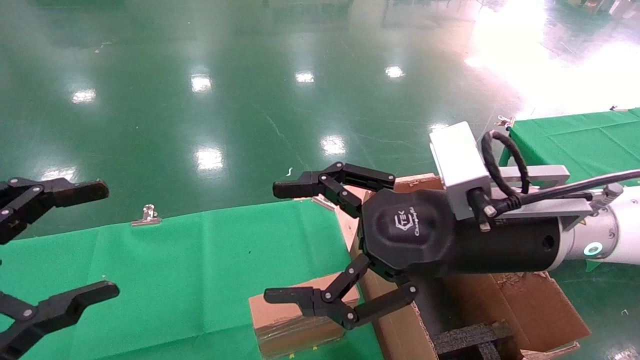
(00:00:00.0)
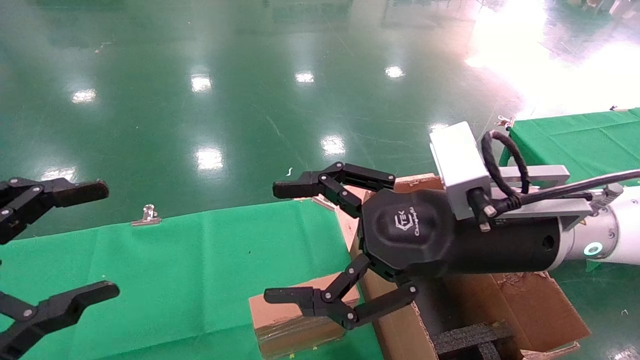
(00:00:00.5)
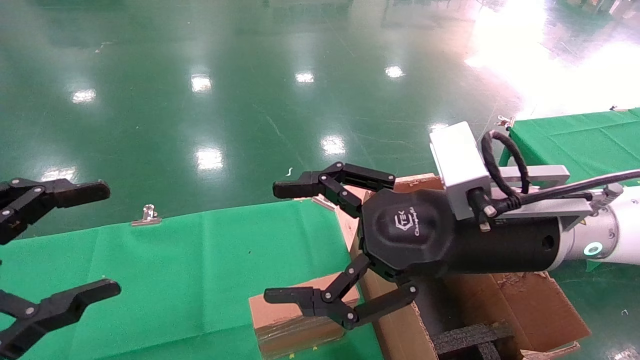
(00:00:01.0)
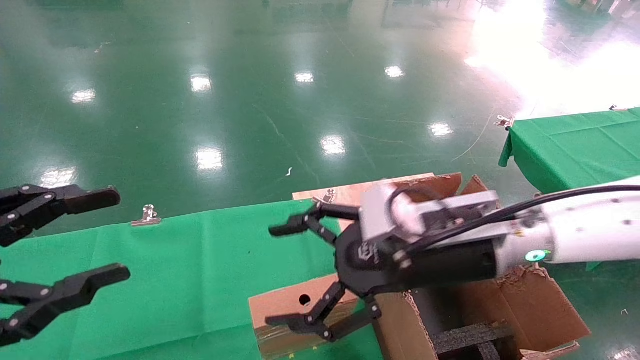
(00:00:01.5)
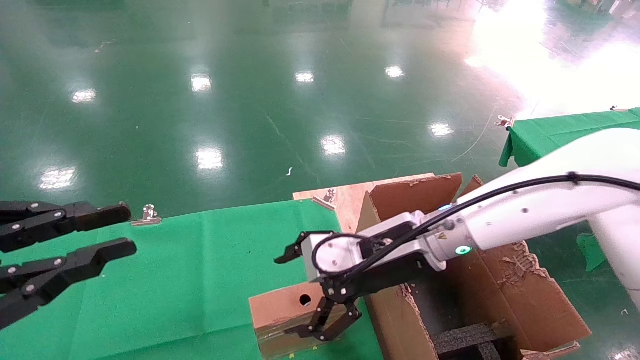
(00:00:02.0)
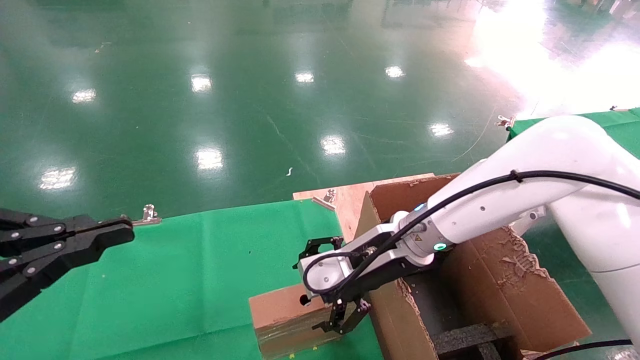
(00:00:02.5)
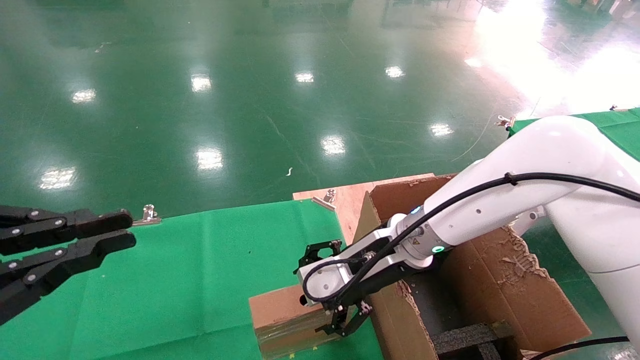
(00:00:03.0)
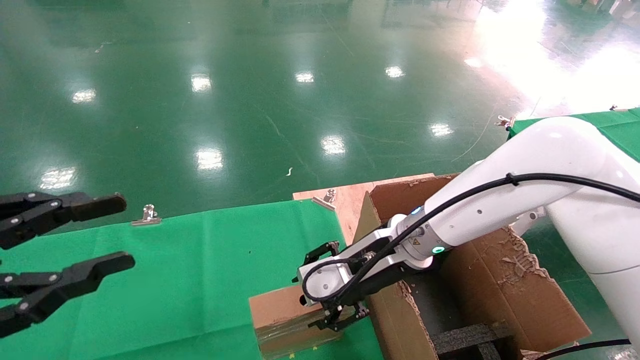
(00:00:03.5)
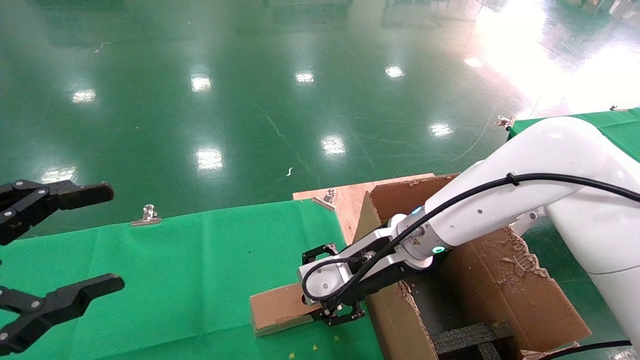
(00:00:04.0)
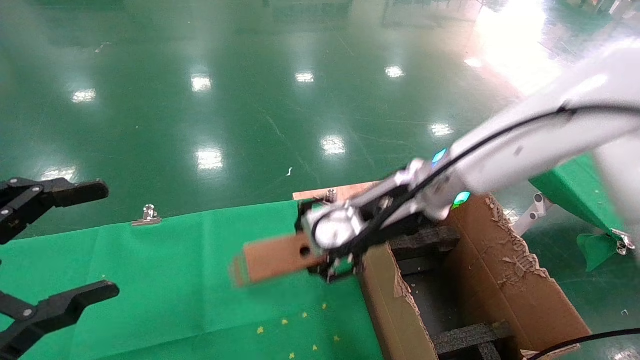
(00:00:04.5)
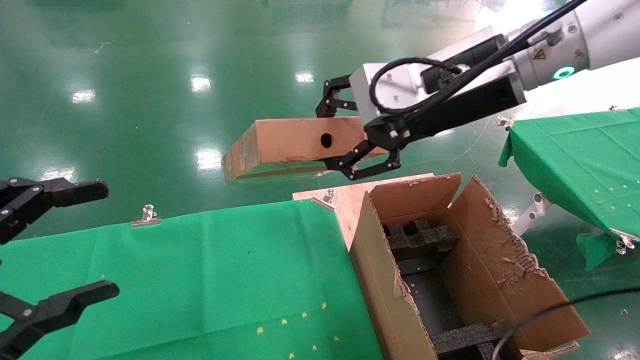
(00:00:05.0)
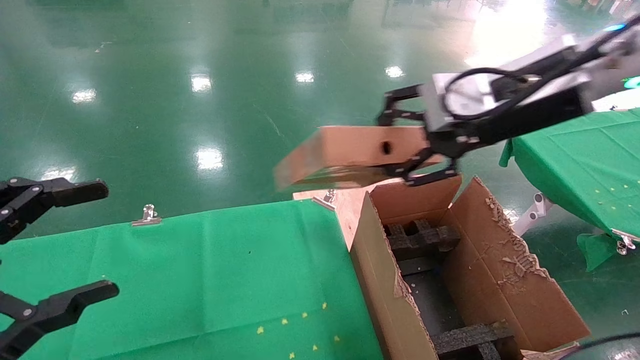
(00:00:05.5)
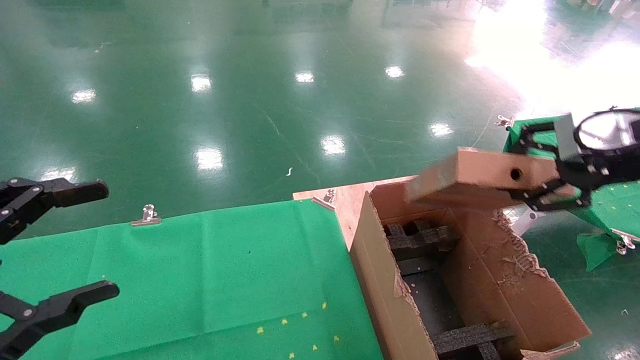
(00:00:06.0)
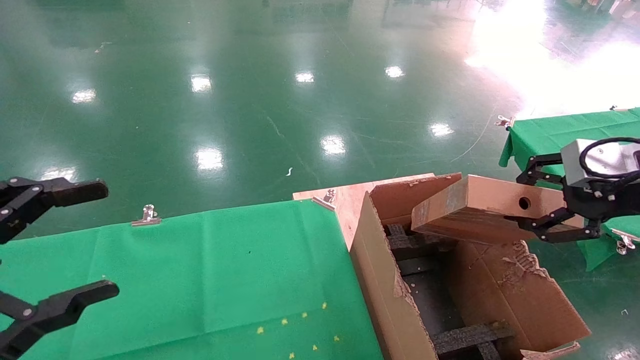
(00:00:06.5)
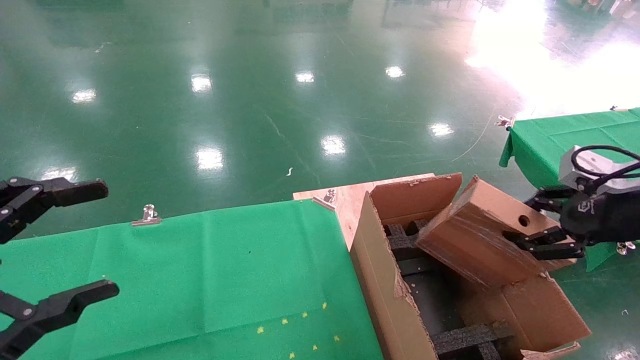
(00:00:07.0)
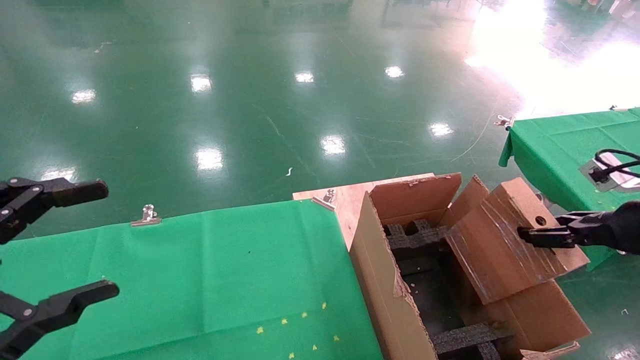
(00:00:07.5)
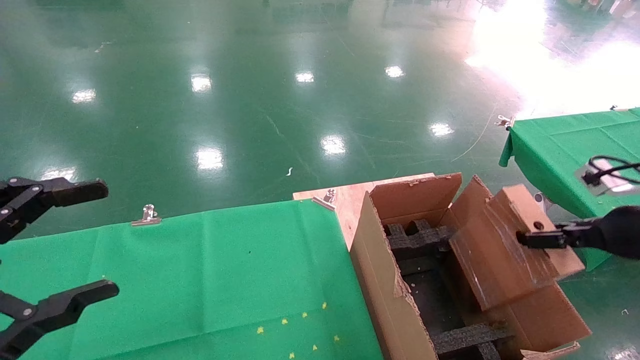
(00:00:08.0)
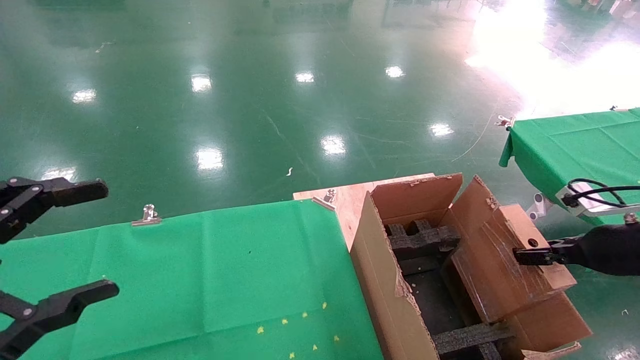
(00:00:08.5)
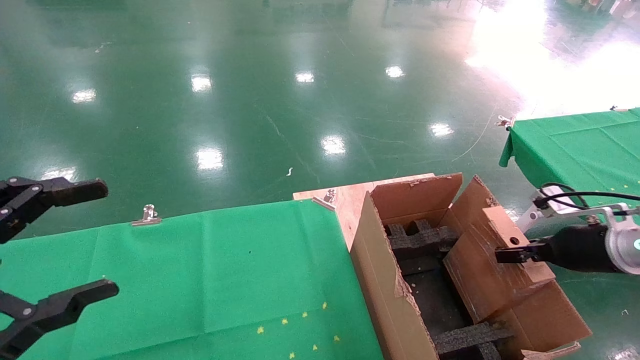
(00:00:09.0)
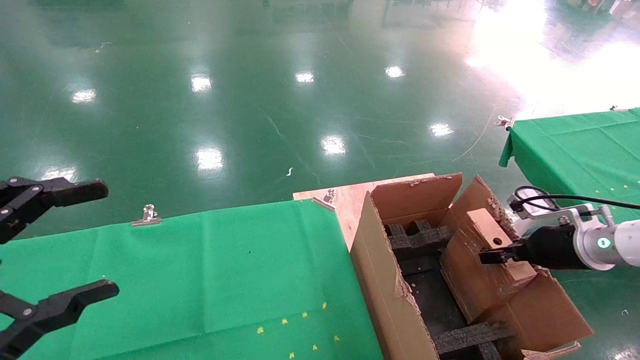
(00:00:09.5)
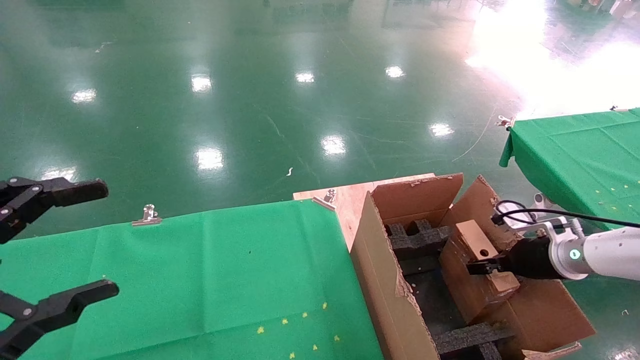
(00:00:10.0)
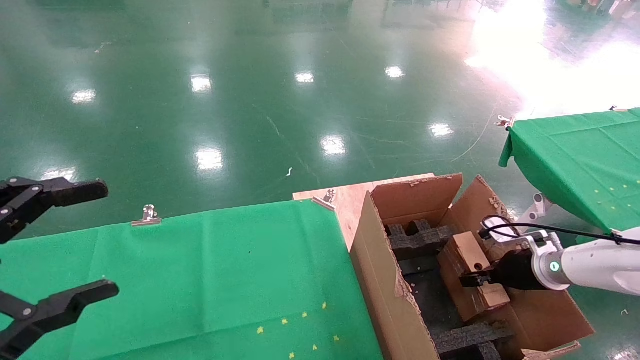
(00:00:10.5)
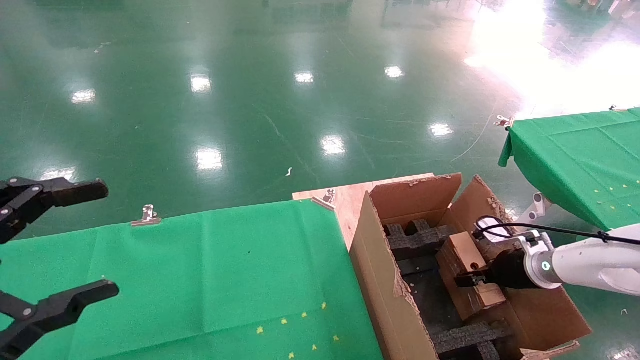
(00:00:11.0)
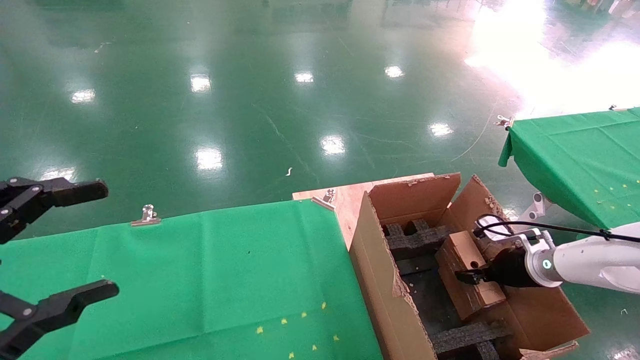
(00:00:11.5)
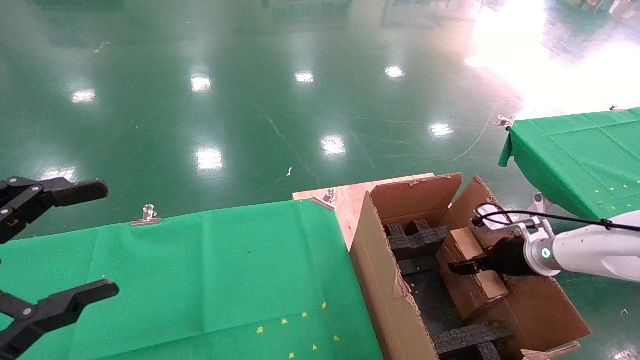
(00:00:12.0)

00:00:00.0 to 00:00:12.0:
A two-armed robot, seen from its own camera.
Task of the whole recording: using a robotic arm to pick up a cardboard box and palace it the carton.
Step, 00:00:01.5 to 00:00:04.0: Pick up the mouse and the power cord paper box.
00:00:00.0 to 00:00:02.0: The right gripper goes approximately 10 cm forward and downward. Meanwhile the left gripper closes its fingers.
00:00:02.0 to 00:00:04.0: The left gripper opens; the right gripper closes up.
00:00:04.0 to 00:00:06.0: The right gripper shifts approximately 35 cm to the right, upward and backward.
00:00:06.0 to 00:00:08.0: The right gripper shifts about 15 cm downward and to the right.
00:00:08.0 to 00:00:10.0: The right gripper goes about 15 cm forward and downward.
00:00:10.0 to 00:00:12.0: The right gripper opens its fingers.

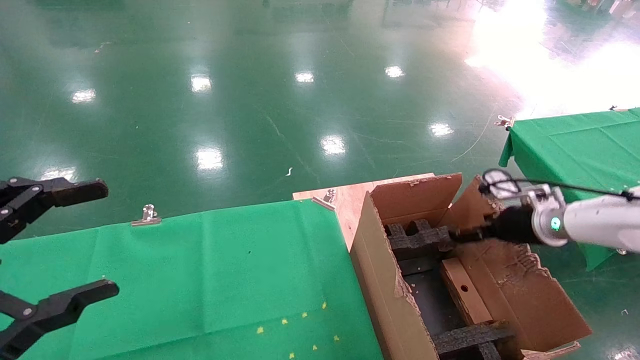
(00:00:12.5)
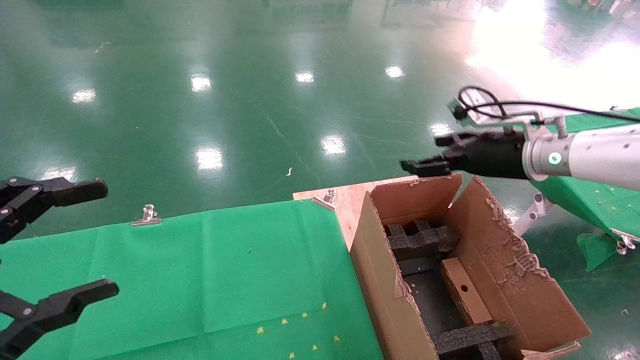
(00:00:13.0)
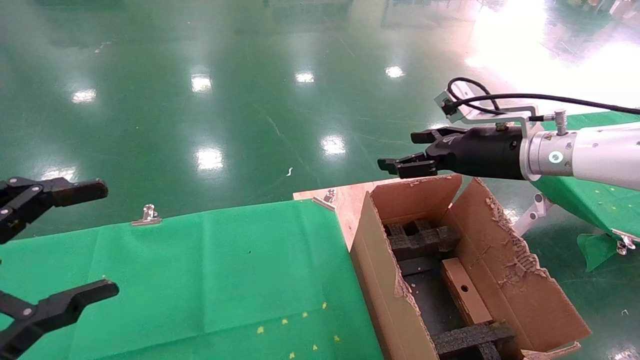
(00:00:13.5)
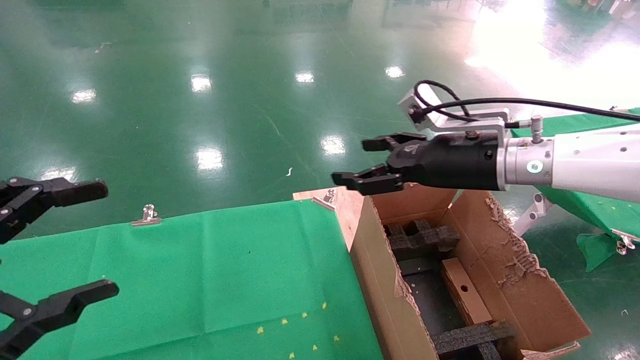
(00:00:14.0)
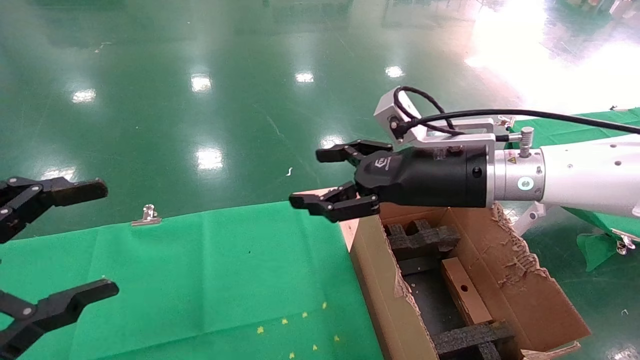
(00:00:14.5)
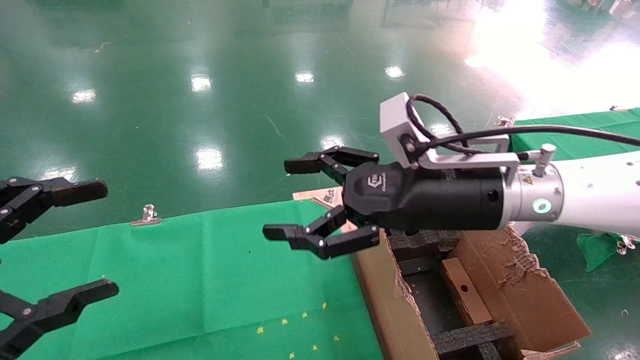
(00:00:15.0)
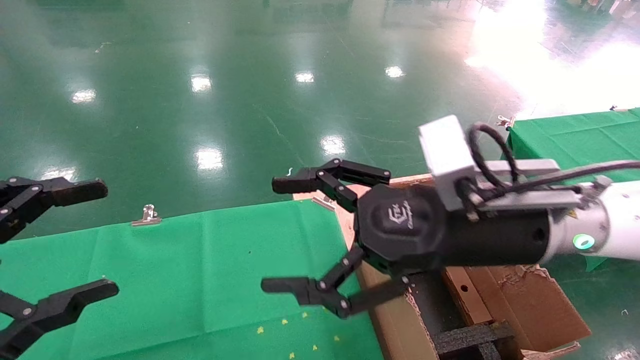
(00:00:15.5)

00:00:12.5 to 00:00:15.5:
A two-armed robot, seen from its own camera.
Task of the whole recording: using a robotic arm to pick up a cardboard box and palace it the carton.
00:00:12.5 to 00:00:14.0: The right gripper heads to the left and upward, covering roughly 20 cm.
00:00:14.0 to 00:00:15.5: The right gripper goes about 15 cm backward and to the left.
